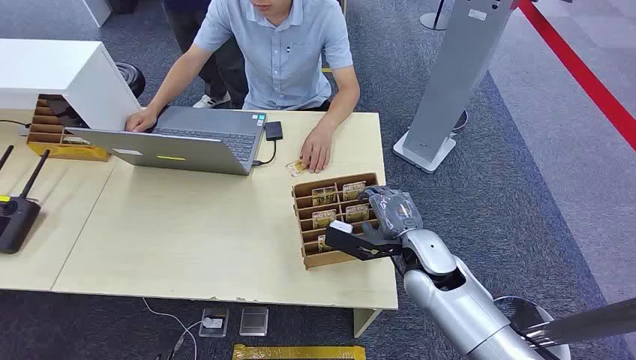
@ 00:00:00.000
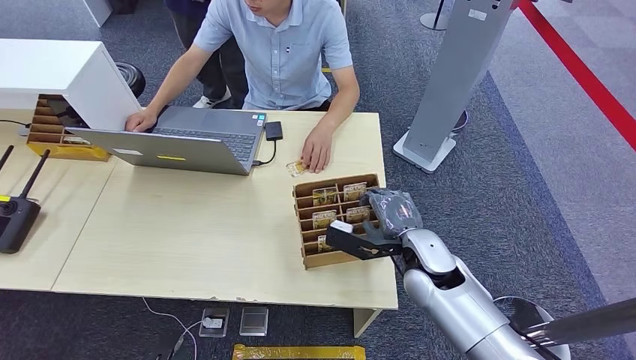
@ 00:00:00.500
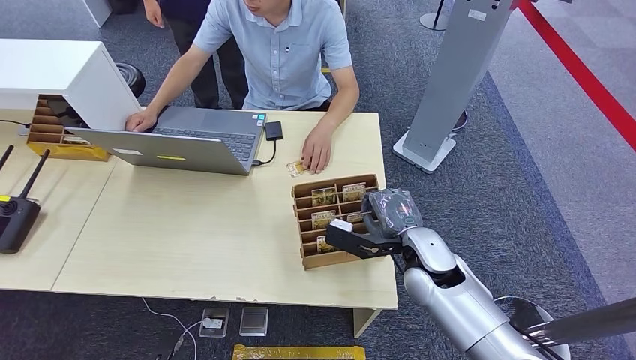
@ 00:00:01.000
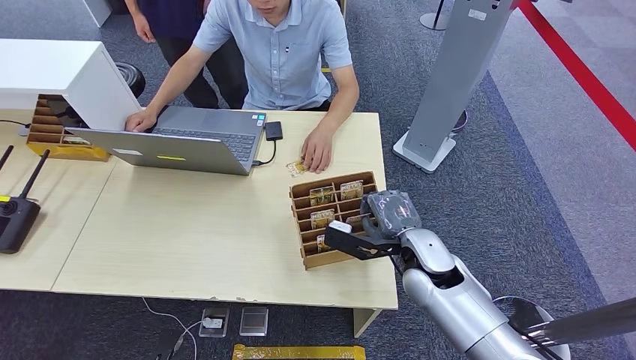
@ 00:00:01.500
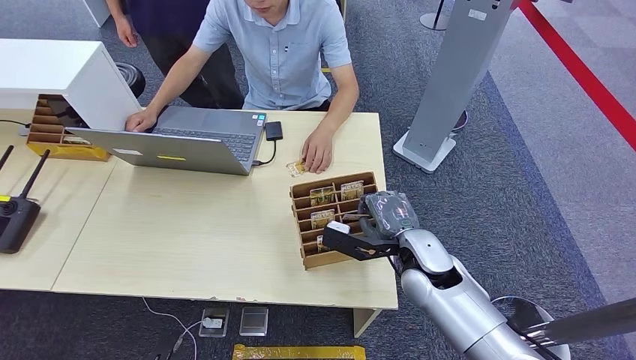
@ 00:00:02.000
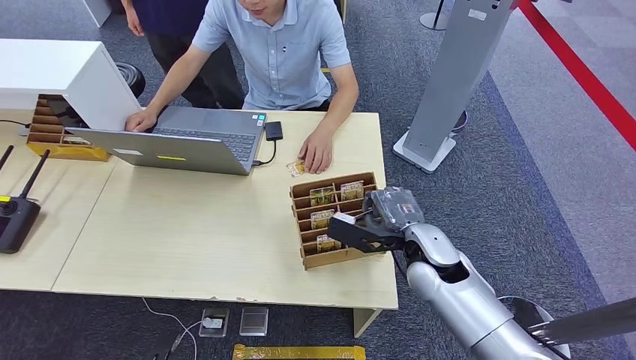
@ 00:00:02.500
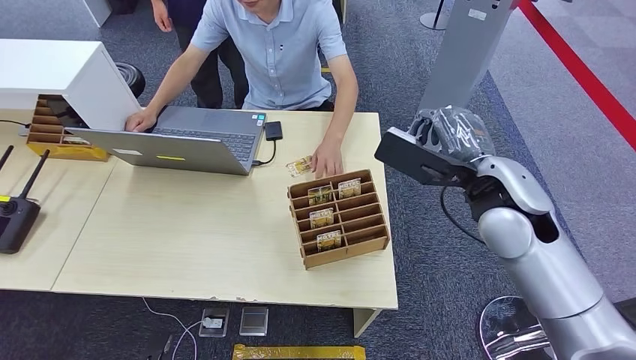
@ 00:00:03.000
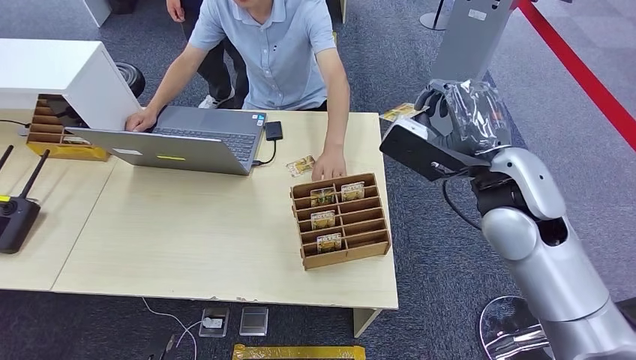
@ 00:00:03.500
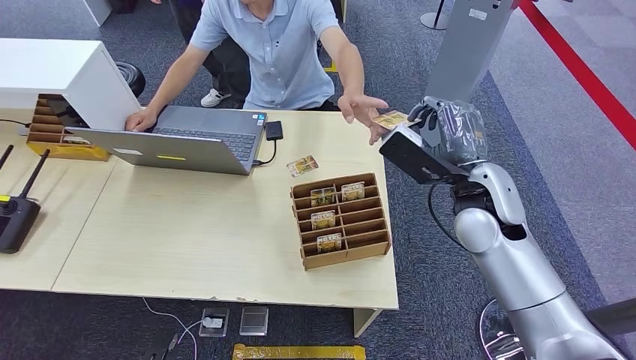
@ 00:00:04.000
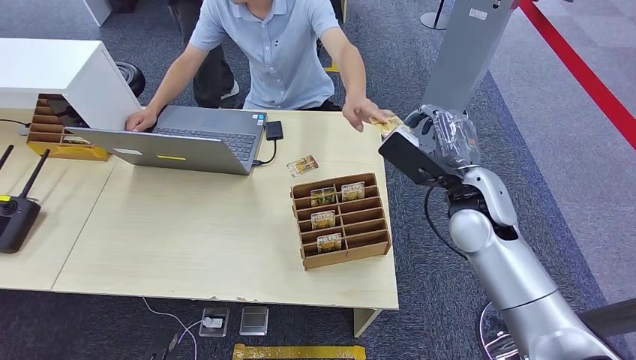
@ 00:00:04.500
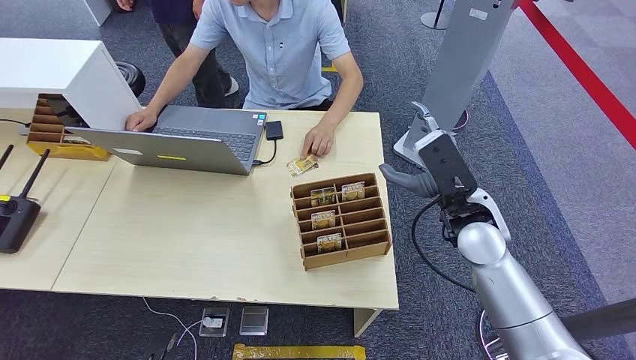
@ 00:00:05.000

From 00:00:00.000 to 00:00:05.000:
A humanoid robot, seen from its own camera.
Step, from 00:00:00.000 to 00:00:02.500: Pick up the key card from the card box.
Step, from 00:00:04.000 to 00:00:05.000: Hand the key card to the target.
From 00:00:02.500 to 00:00:05.000: The right hand shifts about 10 cm upward.

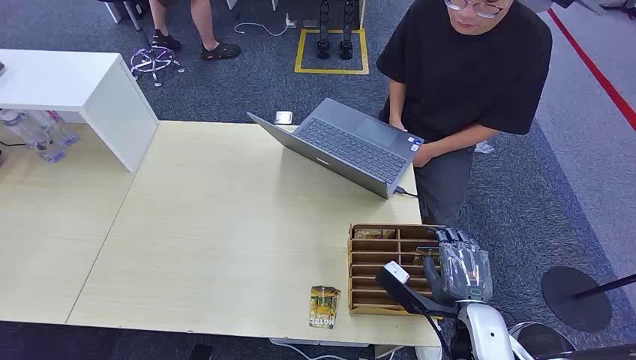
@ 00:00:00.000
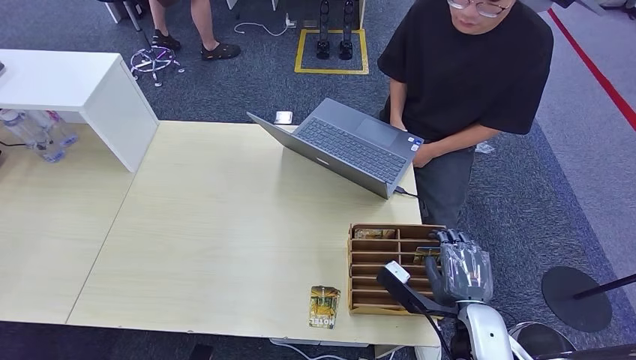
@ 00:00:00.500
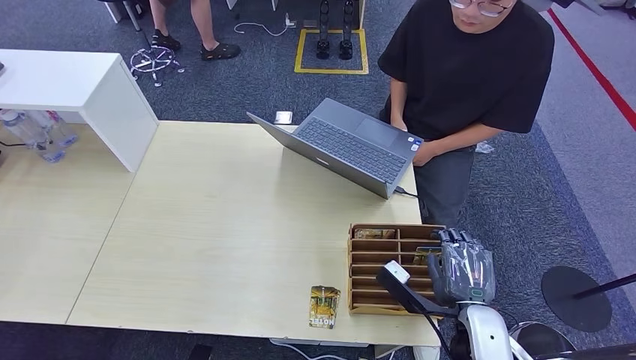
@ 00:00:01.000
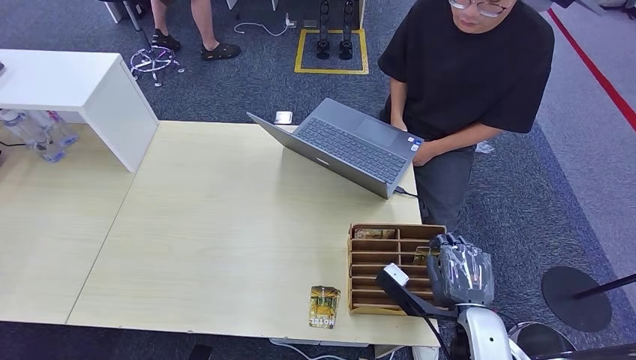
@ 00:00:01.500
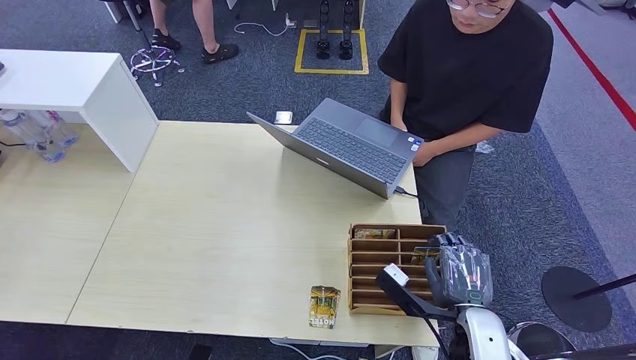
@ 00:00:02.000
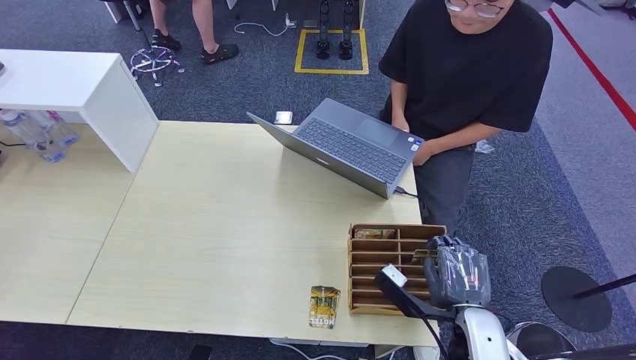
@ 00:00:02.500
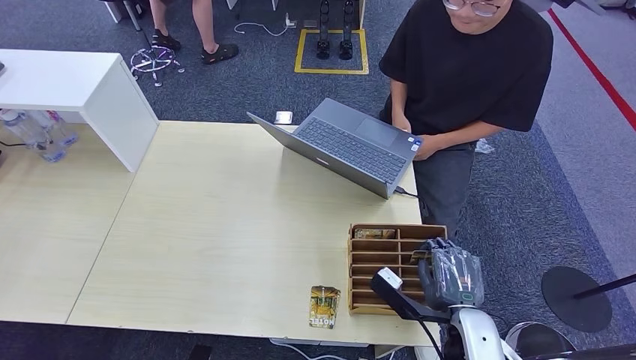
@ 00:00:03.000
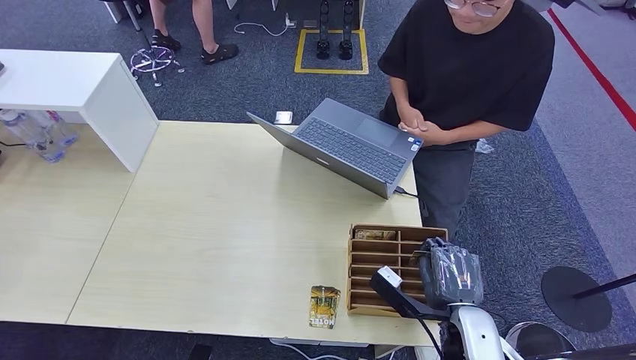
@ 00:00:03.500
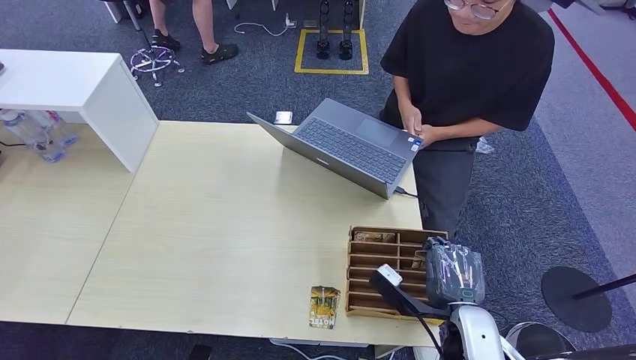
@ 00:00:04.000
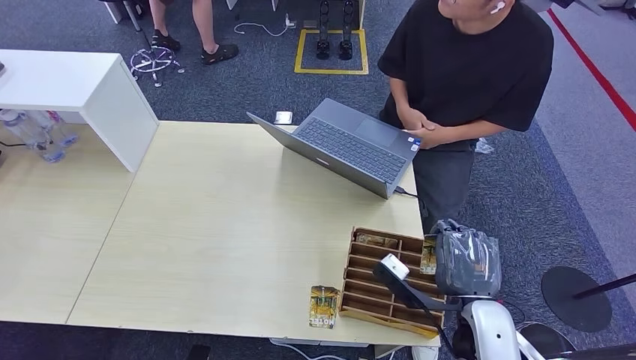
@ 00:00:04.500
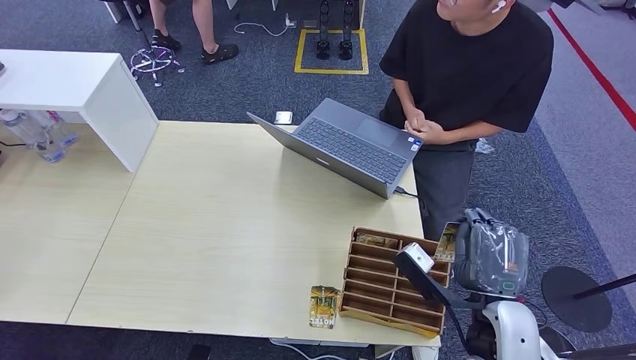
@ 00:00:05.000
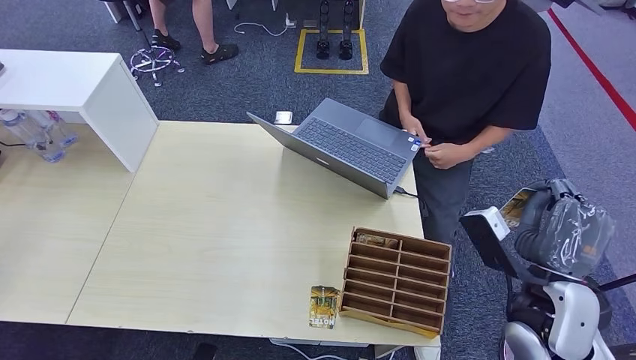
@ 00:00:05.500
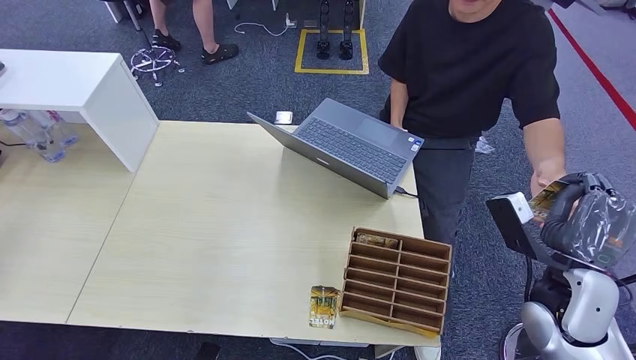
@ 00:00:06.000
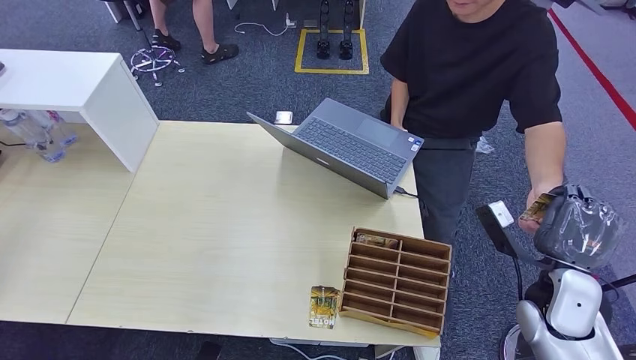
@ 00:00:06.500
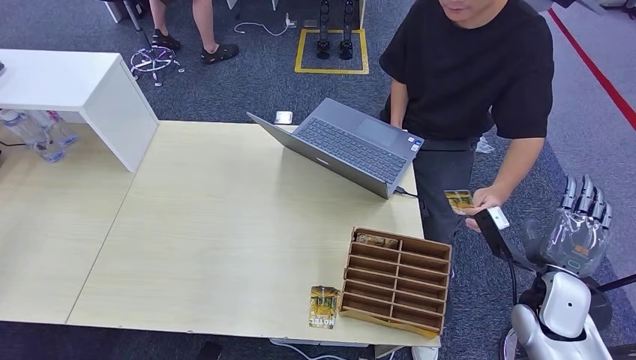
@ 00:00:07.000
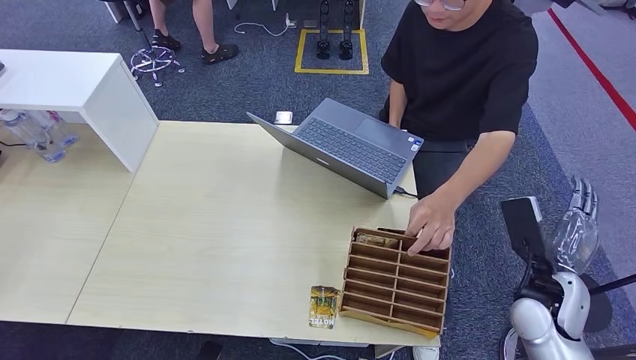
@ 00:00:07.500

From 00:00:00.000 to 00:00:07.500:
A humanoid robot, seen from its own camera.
Step, from 00:00:00.000 to 00:00:05.000: Pick up the key card from the card box.
Step, from 00:00:05.500 to 00:00:07.500: Hand the key card to the target.
From 00:00:02.000 to 00:00:04.000: Both hands stay put.
From 00:00:04.000 to 00:00:05.500: The right hand heads upward and to the right, covering approximately 10 cm.
From 00:00:05.500 to 00:00:07.500: The right hand heads downward and to the right, covering about 10 cm.

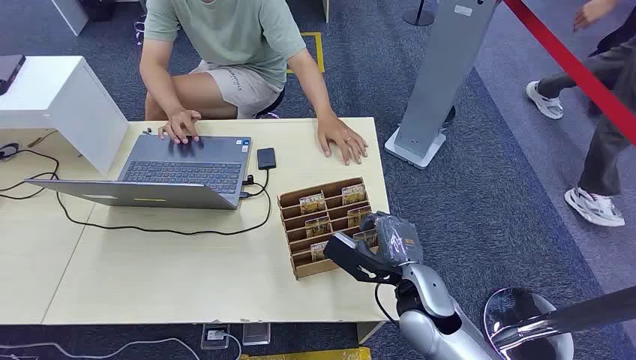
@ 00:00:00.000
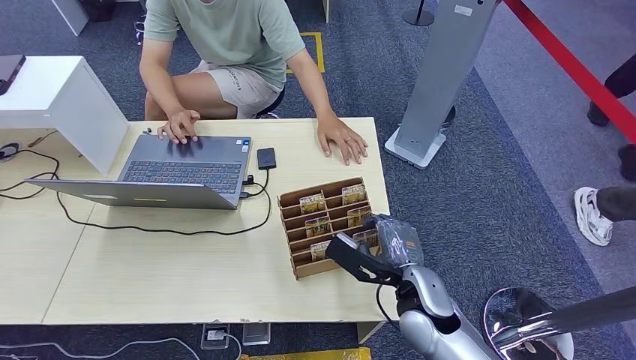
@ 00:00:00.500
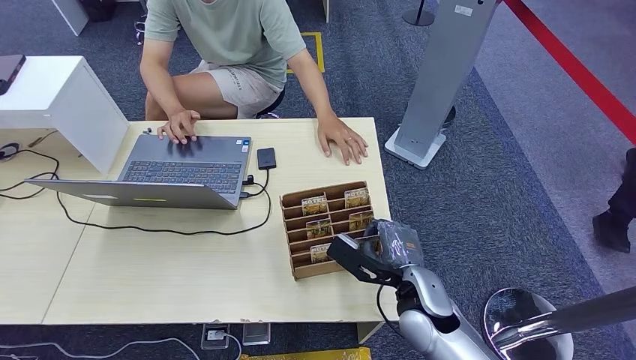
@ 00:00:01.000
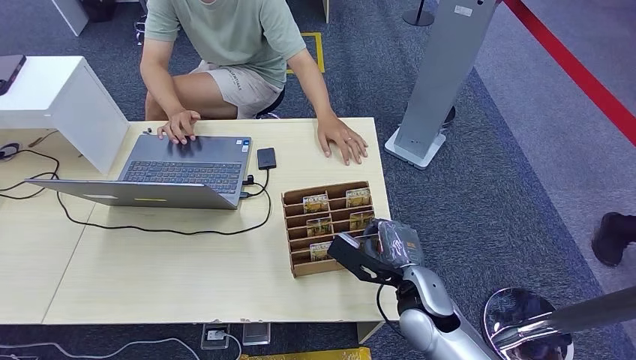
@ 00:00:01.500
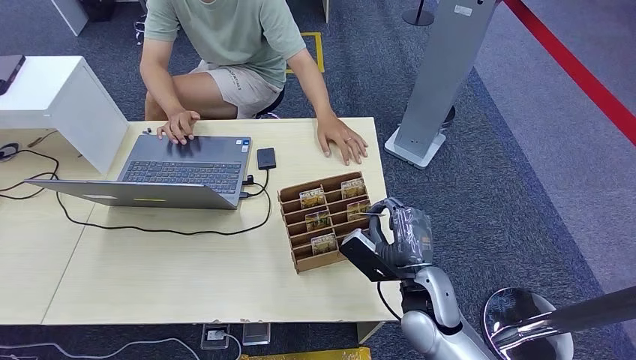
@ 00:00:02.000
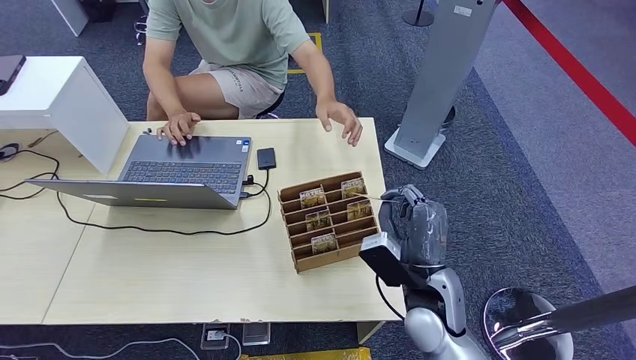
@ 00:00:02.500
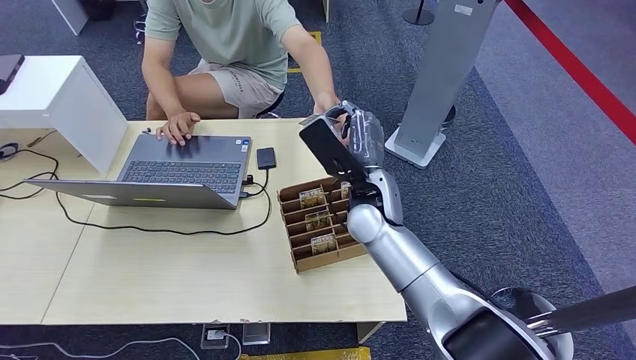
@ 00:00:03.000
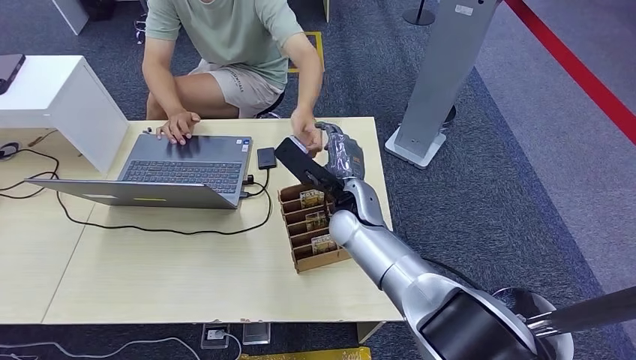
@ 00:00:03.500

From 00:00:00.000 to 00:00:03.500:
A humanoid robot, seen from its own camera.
Step, from 00:00:00.000 to 00:00:02.000: Pick up the key card from the card box.
Step, from 00:00:02.500 to 00:00:03.500: Hand the key card to the target.
From 00:00:02.000 to 00:00:03.500: The right hand moves forward, to the left and upward, some 20 cm.
